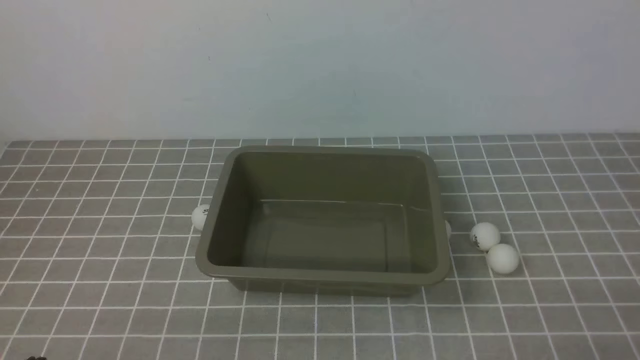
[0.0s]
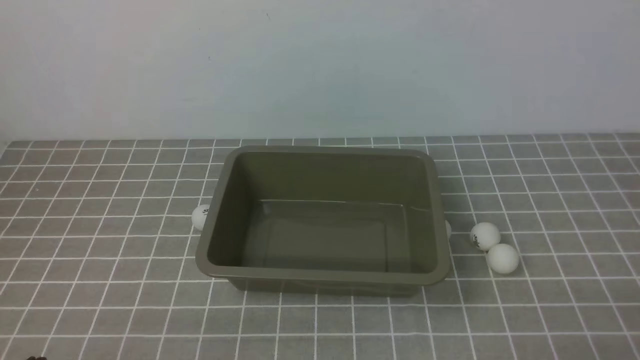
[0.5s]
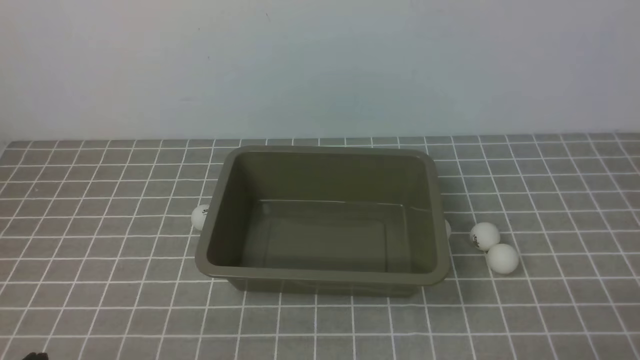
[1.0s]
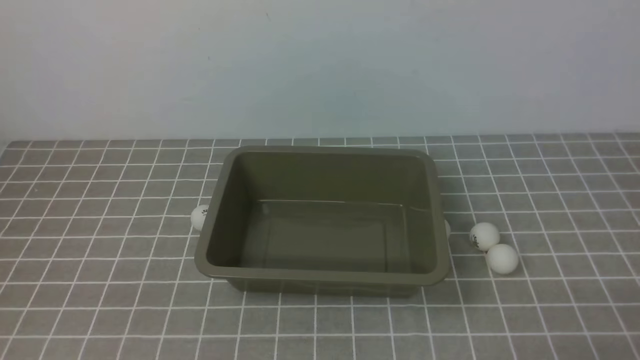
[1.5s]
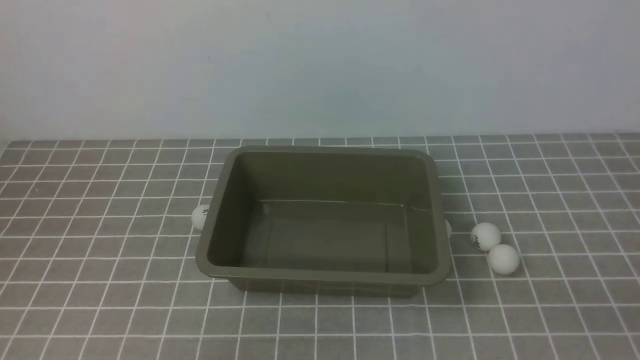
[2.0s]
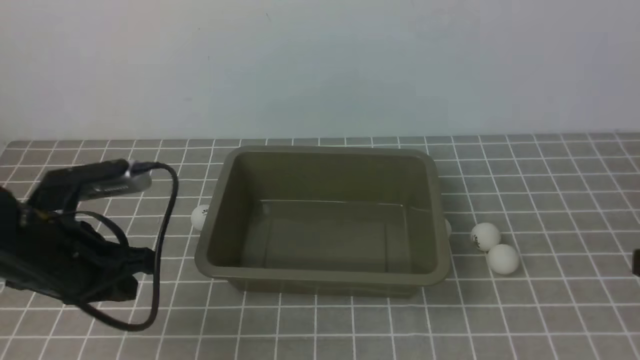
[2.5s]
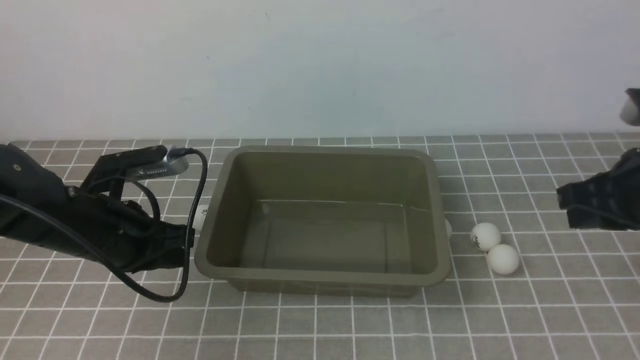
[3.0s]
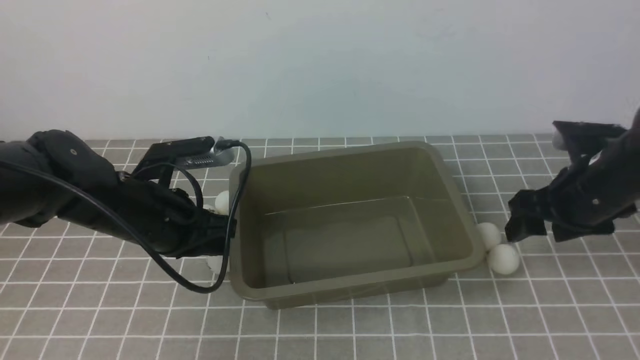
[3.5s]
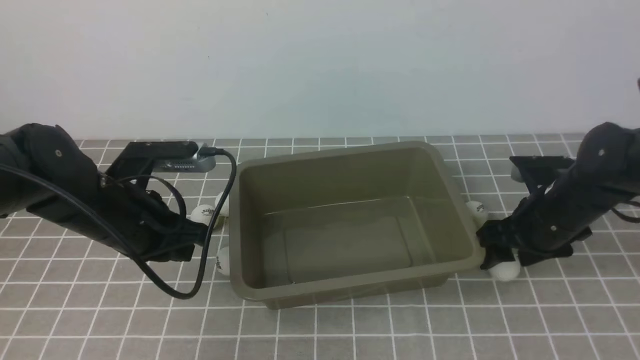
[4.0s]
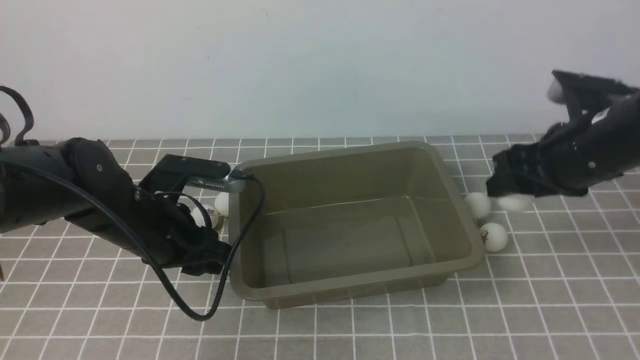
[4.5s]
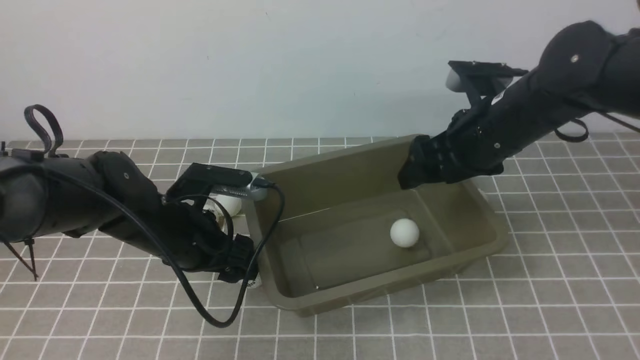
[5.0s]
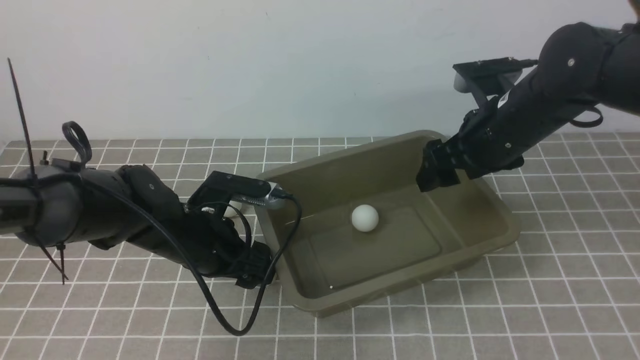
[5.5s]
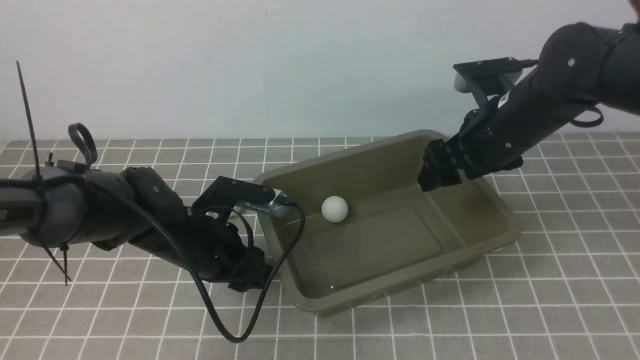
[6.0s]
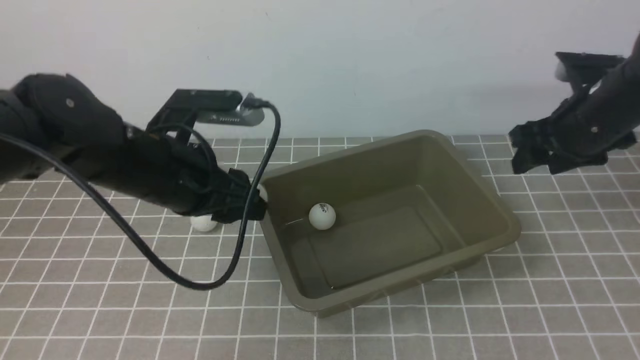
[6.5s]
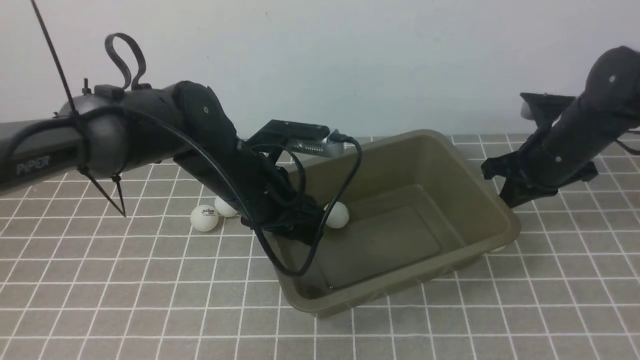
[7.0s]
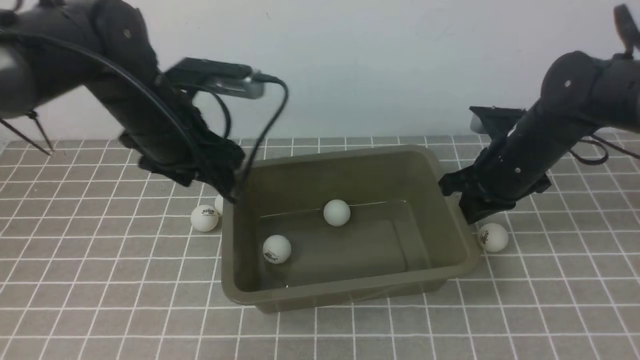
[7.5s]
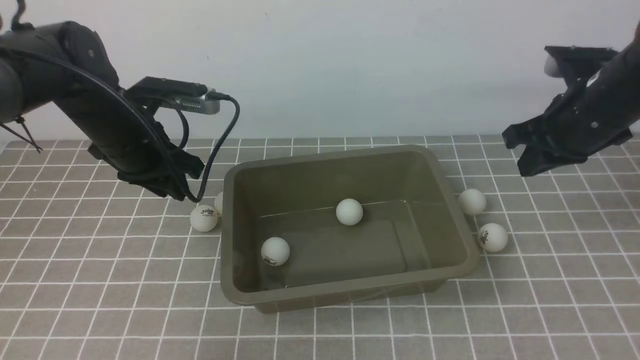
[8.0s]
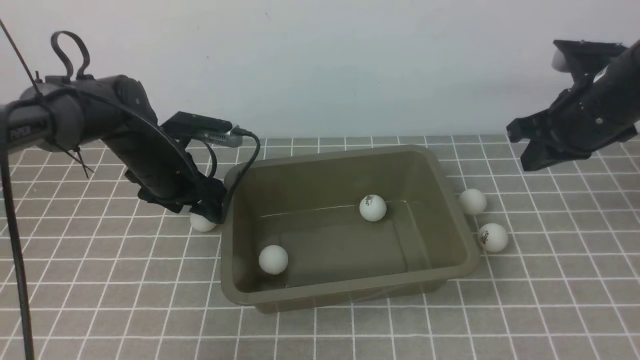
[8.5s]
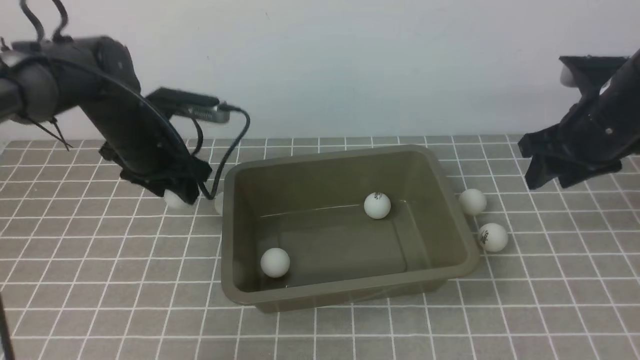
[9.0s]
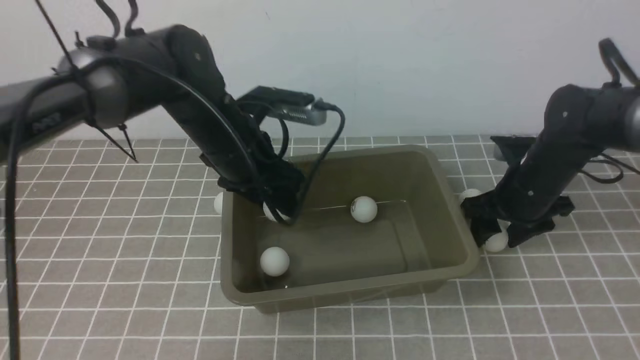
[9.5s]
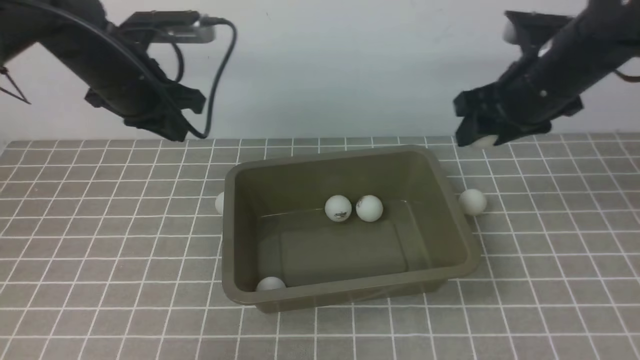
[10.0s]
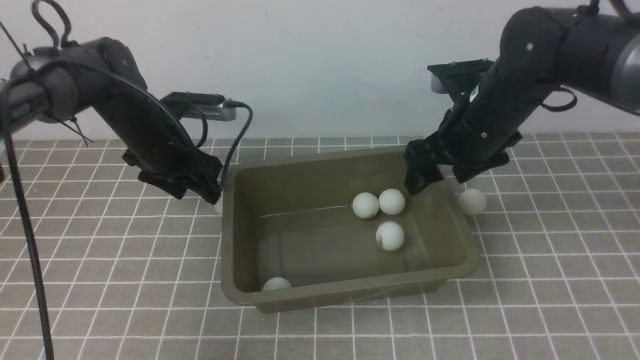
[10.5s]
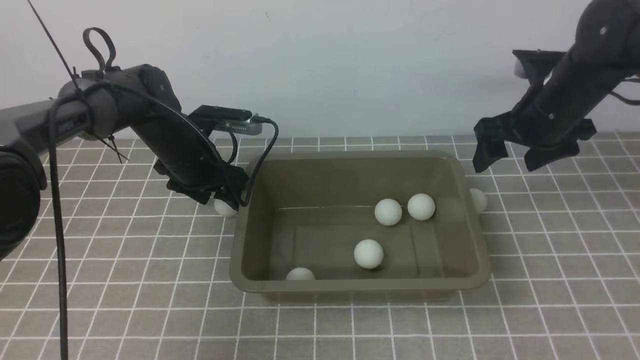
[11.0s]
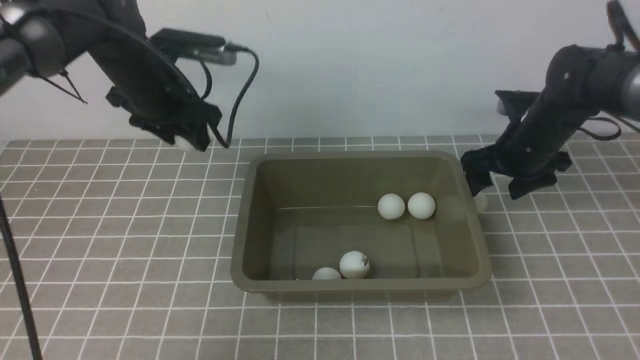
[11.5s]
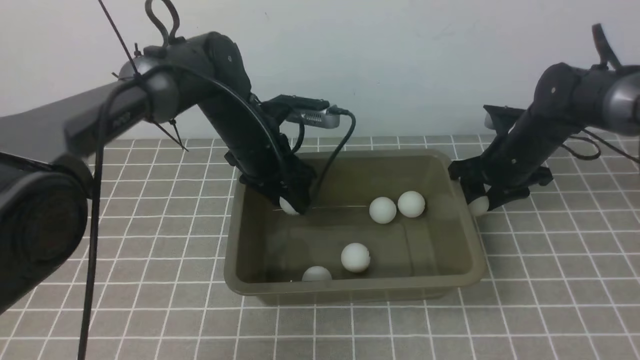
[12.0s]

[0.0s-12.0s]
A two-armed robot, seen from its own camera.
Step, 0.0s to 4.0s: use the right arm to clamp the table tennis ball closest to it.
Step, 5.0s to 7.0s: use the left arm to put the table tennis ball into the box.
Step, 7.5s to 8.5s: use the left arm to clamp the table tennis ball closest to it.
Step, 11.5s to 12.0s: use the left arm to put the table tennis ball into the box.
2.0s to 4.0s: The left gripper goes some 25 cm forward and downward, while the right gripper shifts approximately 30 cm forward, and opens up.
4.0s to 6.0s: The left gripper shifts about 10 cm downward and to the right, and opens up, while the right gripper is displaced upward and to the left by approximately 10 cm.
6.0s to 8.0s: The right gripper goes approximately 5 cm to the right, and closes its fingers. The left gripper moves upward, forward and to the left, roughly 15 cm.
8.0s to 10.0s: The left gripper moves about 5 cm downward and comes back, and opens, then closes again. The right gripper travels downward and back again, some 10 cm each way, and opens up.
10.0s to 12.0s: The right gripper moves downward and forward, roughly 10 cm, while the left gripper moves to the right, roughly 10 cm, and opens.

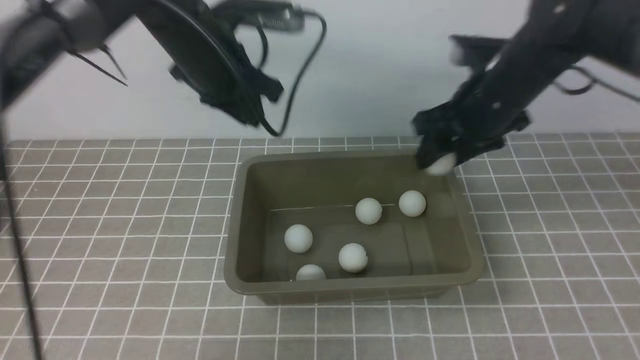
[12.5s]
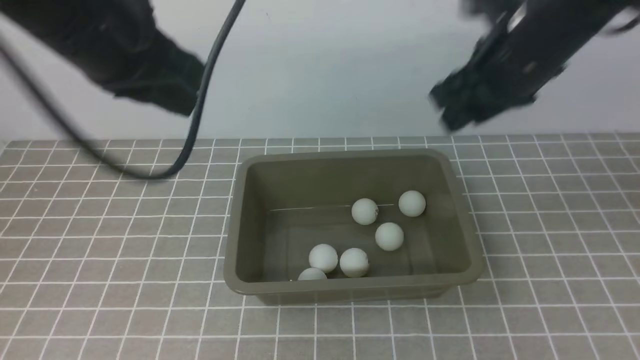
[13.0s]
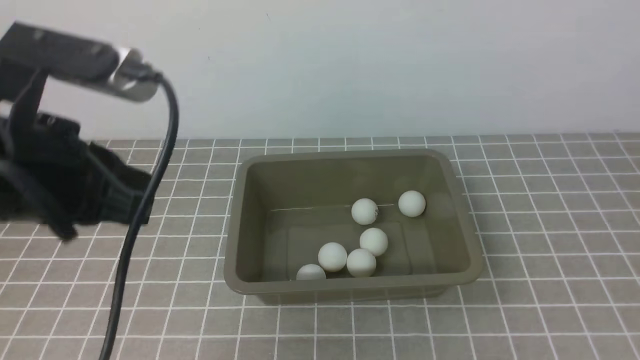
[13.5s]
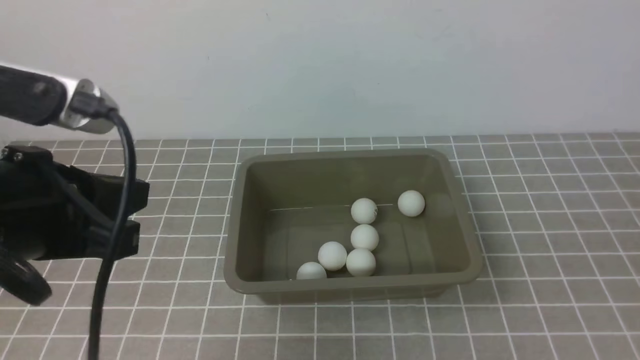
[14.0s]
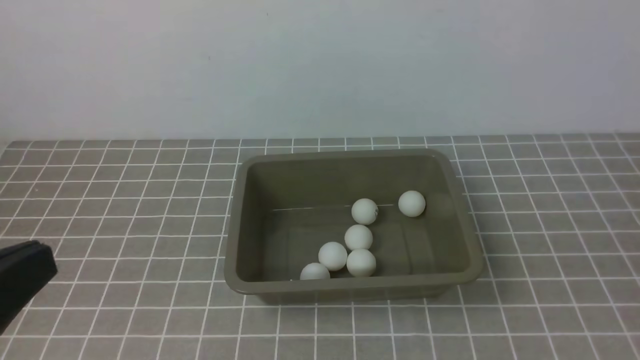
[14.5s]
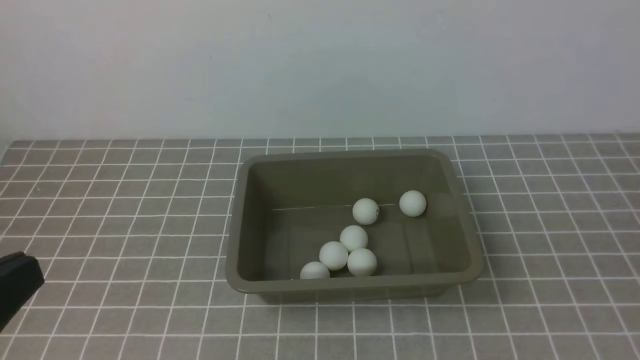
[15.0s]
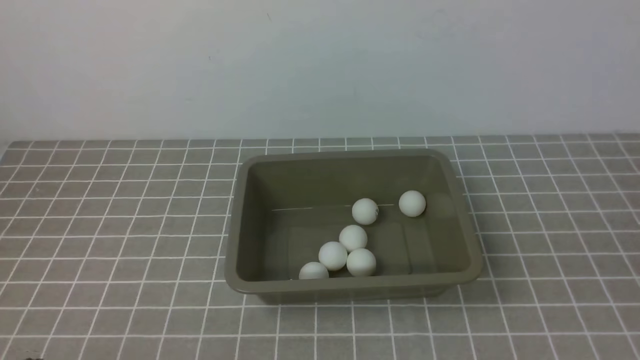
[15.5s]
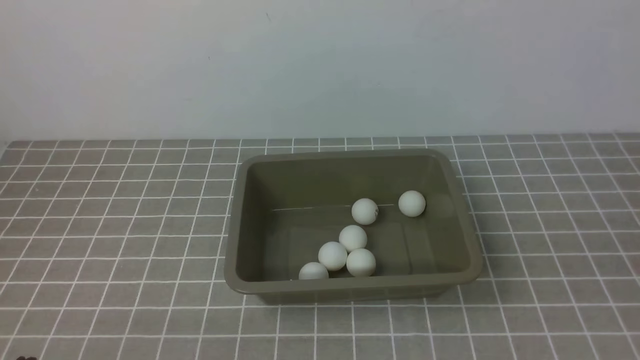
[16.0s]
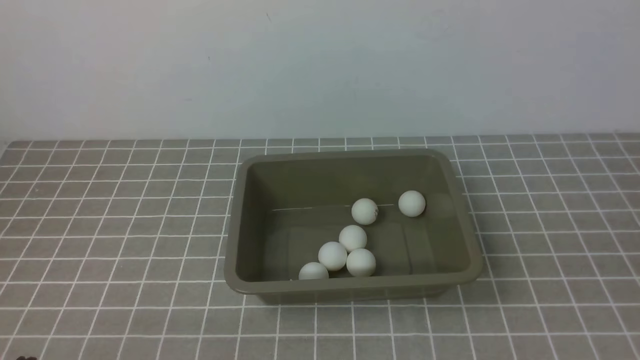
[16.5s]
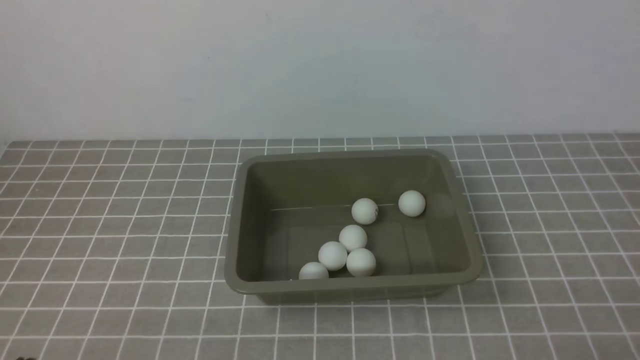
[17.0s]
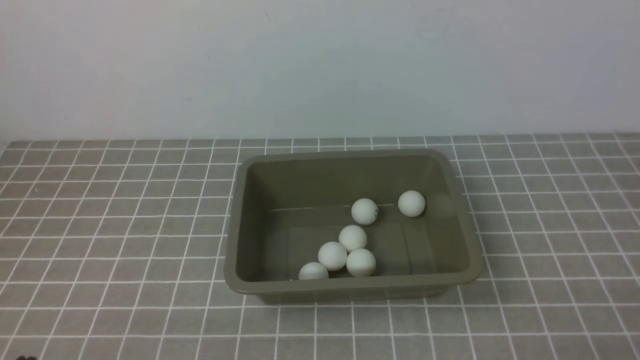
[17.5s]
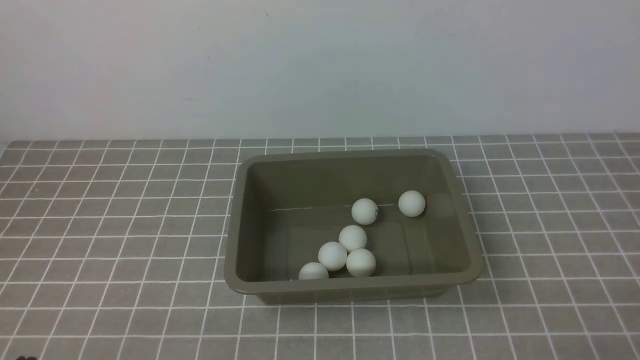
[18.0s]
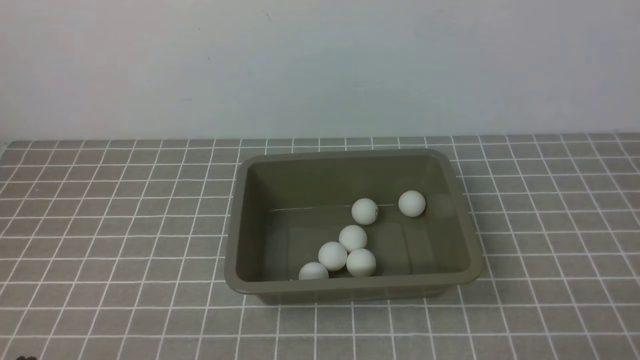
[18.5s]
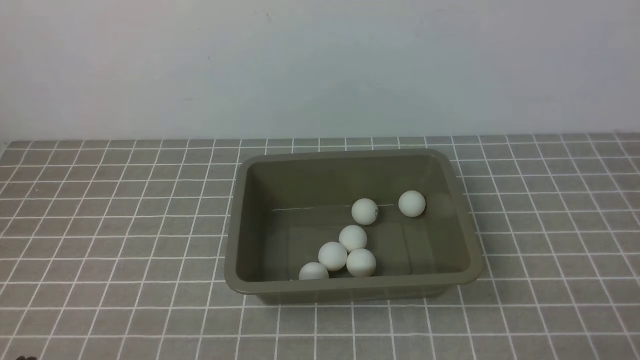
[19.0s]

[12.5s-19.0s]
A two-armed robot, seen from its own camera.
12.5s to 14.5s: Both grippers travel together backward, approximately 40 cm. The left gripper closes its fingers; the right gripper closes.
14.5s to 17.0s: The left gripper moves downward, about 20 cm.
